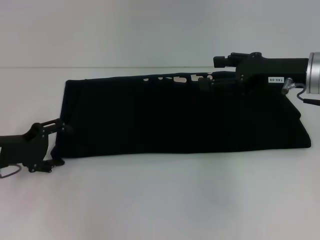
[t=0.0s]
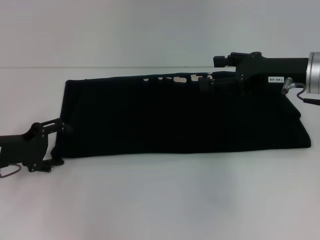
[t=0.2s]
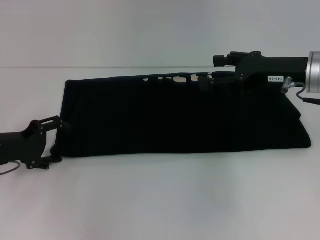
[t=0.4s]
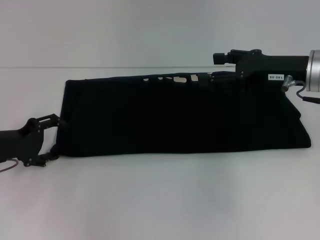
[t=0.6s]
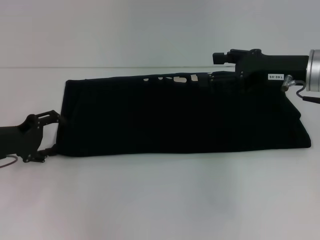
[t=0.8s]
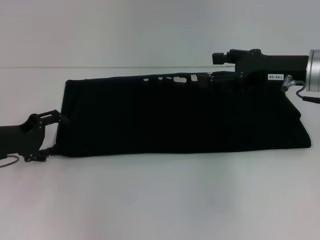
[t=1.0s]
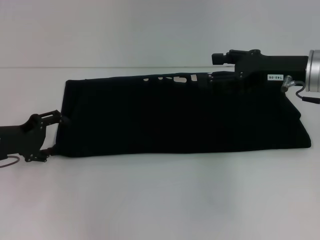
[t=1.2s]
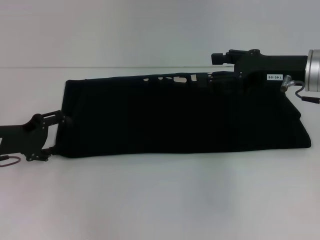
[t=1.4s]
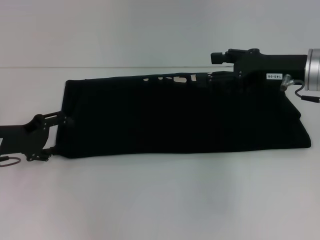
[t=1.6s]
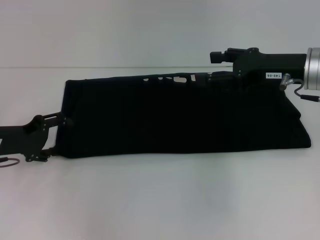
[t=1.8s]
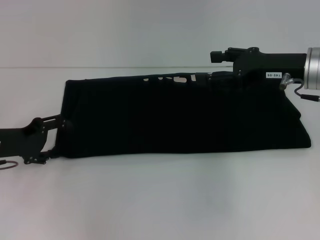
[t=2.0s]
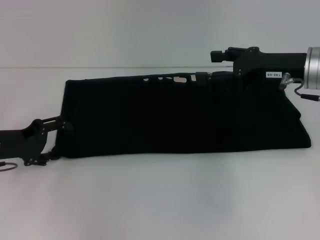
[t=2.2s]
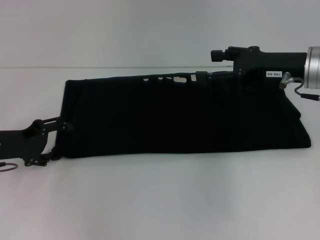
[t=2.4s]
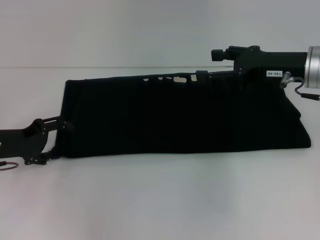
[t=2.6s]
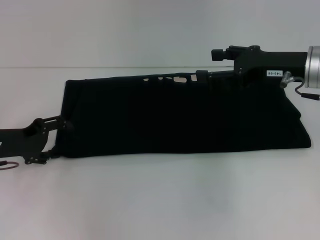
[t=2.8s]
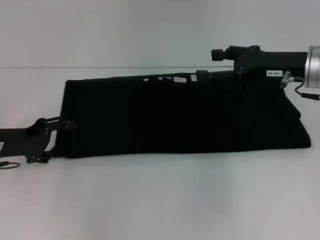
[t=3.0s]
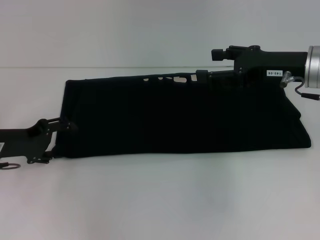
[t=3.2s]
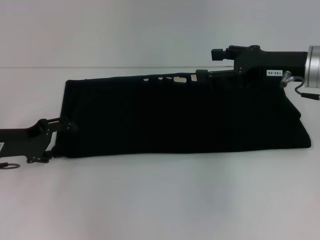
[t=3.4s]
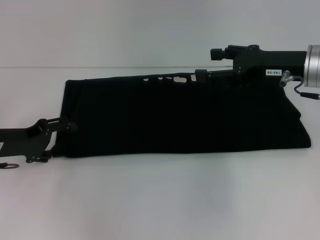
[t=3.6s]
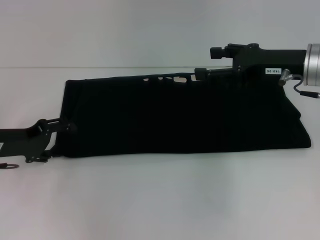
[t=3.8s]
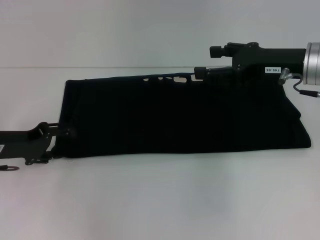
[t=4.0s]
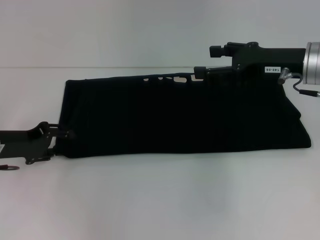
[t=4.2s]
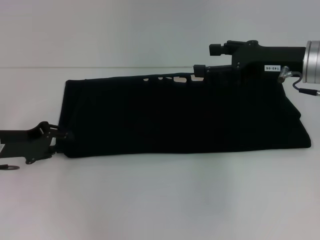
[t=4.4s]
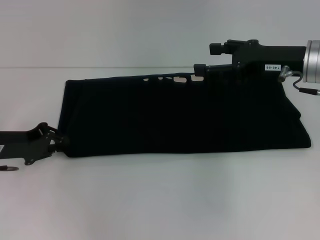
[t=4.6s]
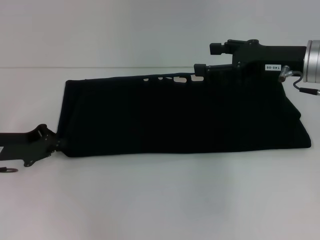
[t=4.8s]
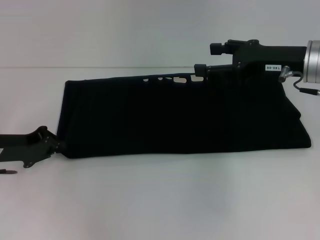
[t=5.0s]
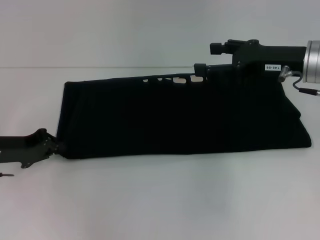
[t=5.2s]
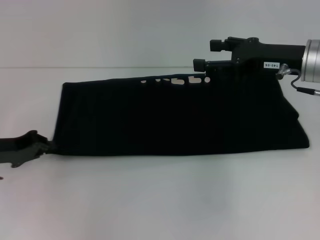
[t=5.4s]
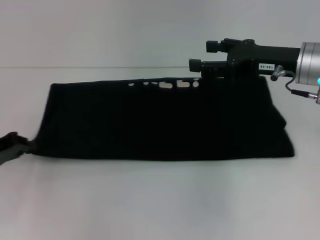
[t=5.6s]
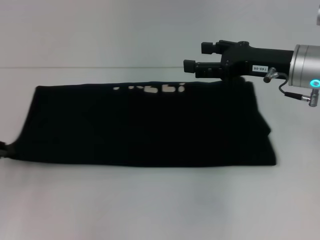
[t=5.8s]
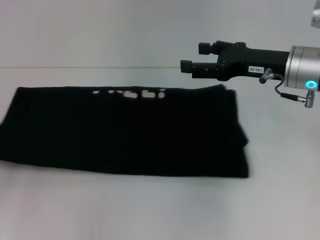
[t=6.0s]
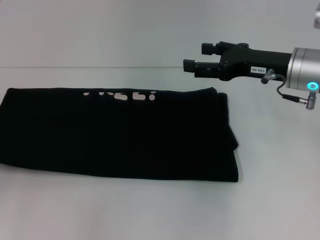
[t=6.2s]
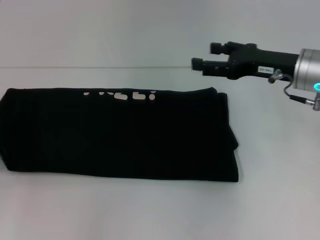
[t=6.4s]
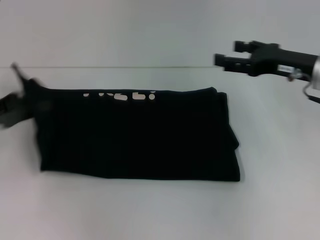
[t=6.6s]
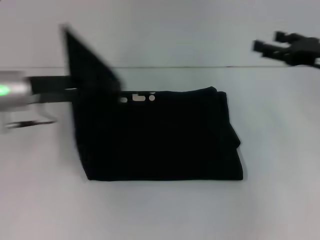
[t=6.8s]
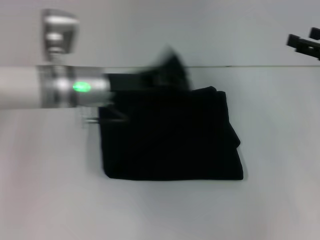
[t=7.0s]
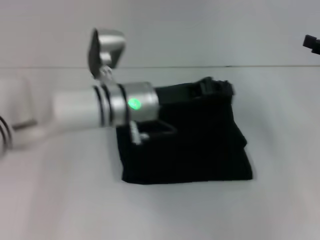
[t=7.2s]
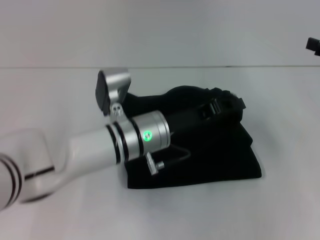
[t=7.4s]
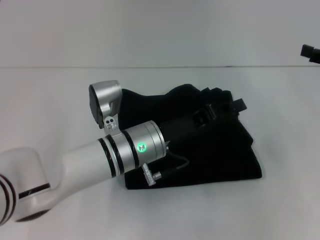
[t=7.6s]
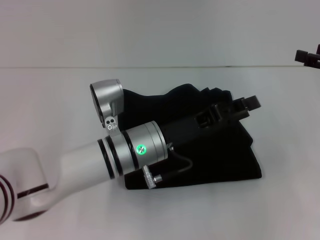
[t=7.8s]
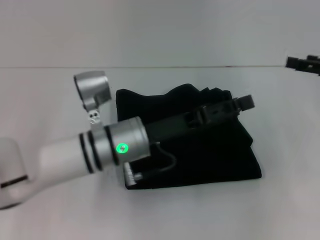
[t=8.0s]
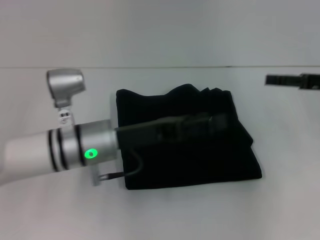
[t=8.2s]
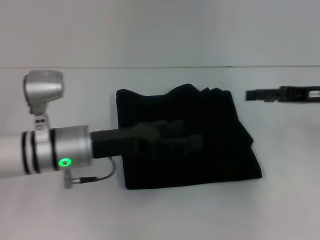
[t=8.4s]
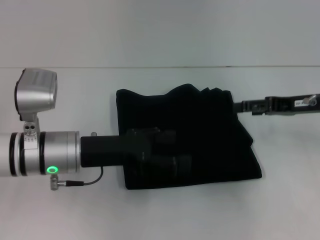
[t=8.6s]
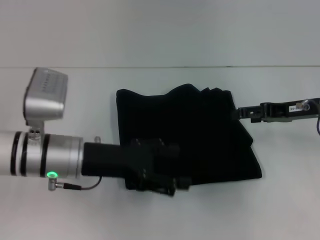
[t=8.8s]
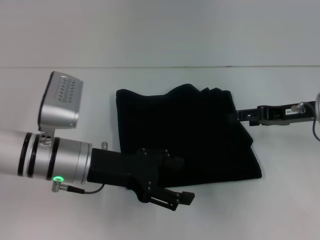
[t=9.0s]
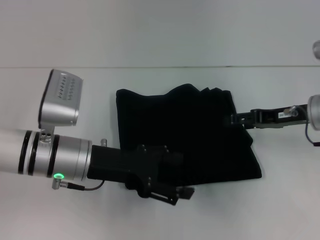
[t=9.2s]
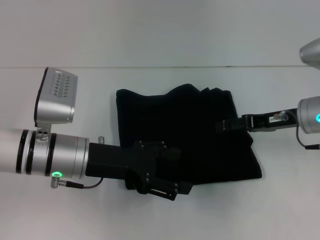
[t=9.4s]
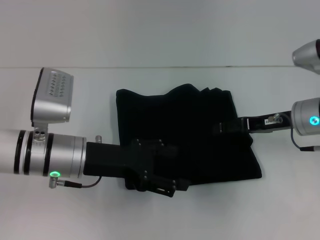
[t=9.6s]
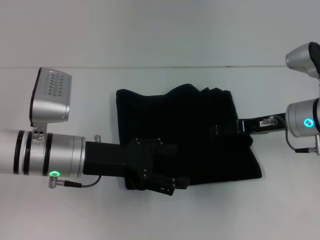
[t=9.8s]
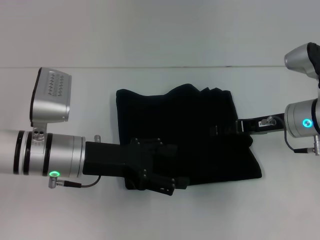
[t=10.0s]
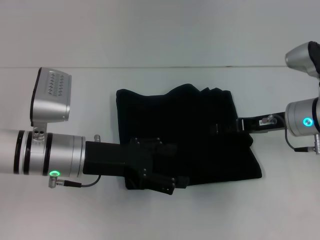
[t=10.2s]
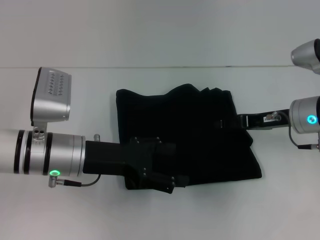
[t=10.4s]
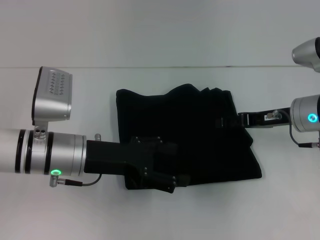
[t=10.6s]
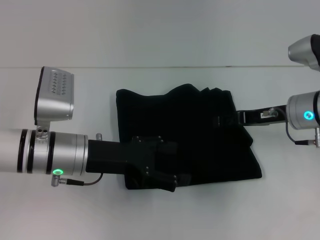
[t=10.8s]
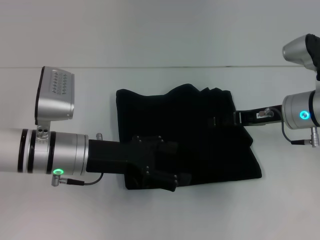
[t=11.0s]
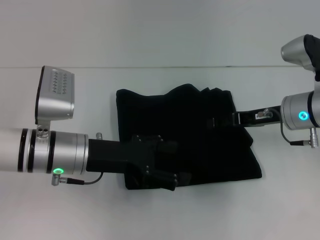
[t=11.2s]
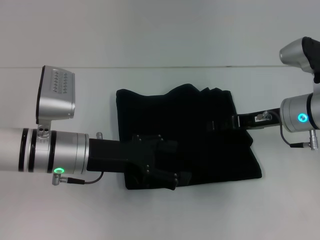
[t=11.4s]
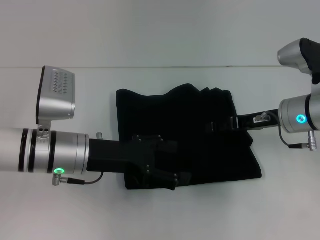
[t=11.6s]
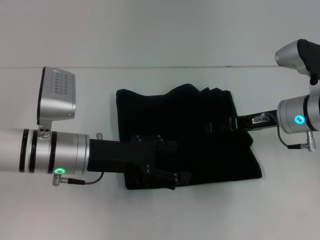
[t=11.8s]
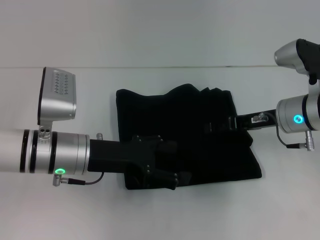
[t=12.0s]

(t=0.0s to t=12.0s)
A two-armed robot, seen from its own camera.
Step, t=0.0s - t=7.8s: Fold the clothes with your left hand.
t=0.0s - t=1.6s: The grippers stay close to where they were, moving slightly.
t=1.6s - t=3.0s: Both grippers stay about where they are.
t=3.0s - t=4.4s: The left gripper closes its fingers.
t=4.4s - t=6.0s: The left gripper goes approximately 10 cm to the left and backward, and closes up.
t=6.0s - t=7.6s: The right gripper goes approximately 15 cm to the right. Meanwhile the left gripper shifts some 35 cm to the right.
t=7.6s - t=9.0s: Both grippers travel together to the left, about 10 cm. The left gripper opens its fingers.
t=9.0s - t=12.0s: The grippers make only small movements.

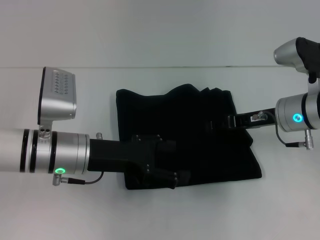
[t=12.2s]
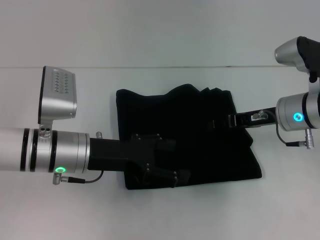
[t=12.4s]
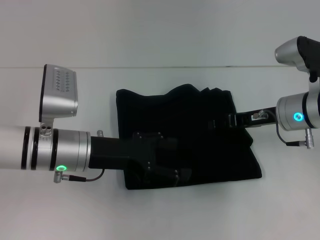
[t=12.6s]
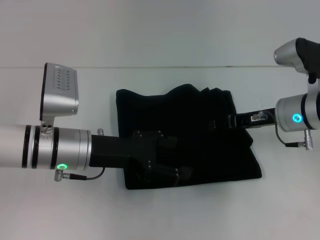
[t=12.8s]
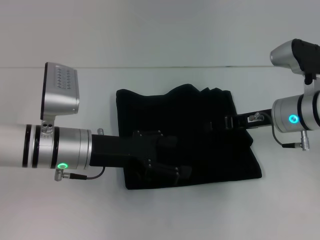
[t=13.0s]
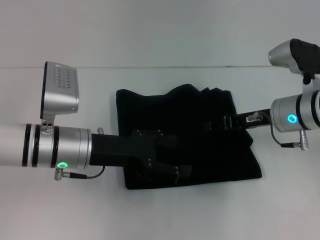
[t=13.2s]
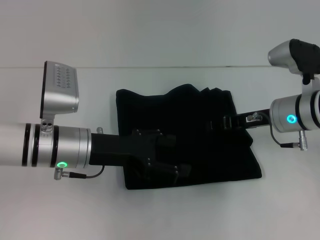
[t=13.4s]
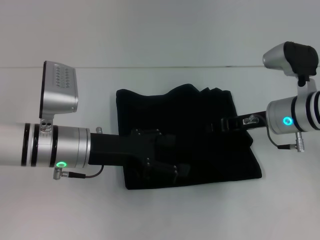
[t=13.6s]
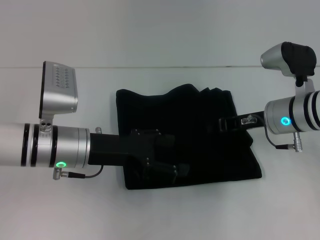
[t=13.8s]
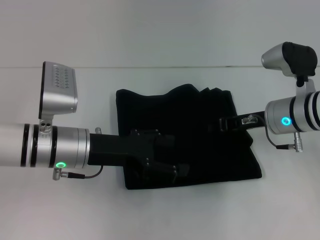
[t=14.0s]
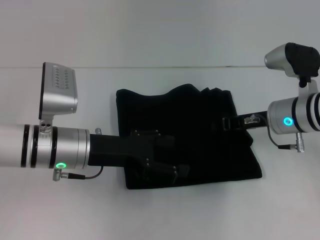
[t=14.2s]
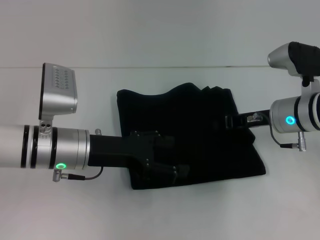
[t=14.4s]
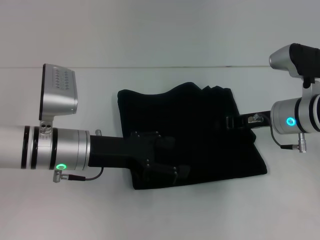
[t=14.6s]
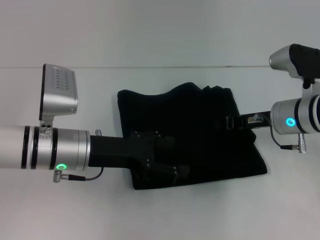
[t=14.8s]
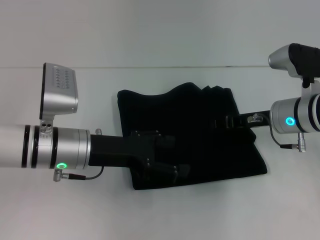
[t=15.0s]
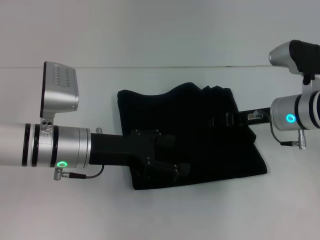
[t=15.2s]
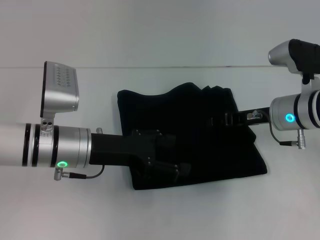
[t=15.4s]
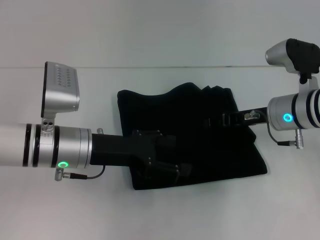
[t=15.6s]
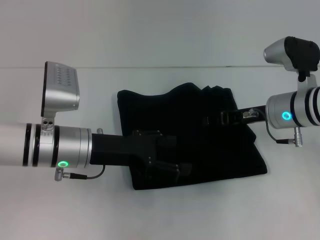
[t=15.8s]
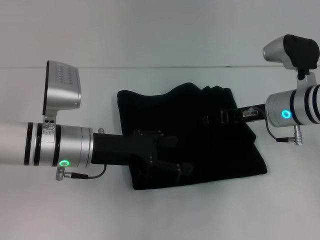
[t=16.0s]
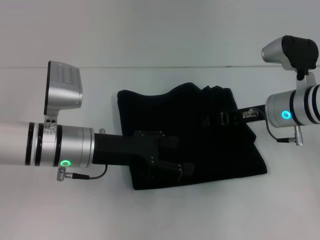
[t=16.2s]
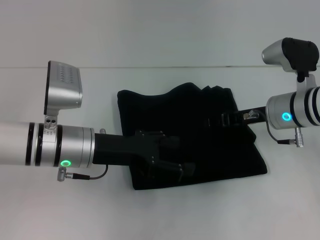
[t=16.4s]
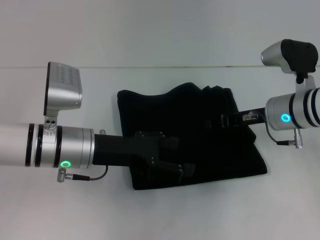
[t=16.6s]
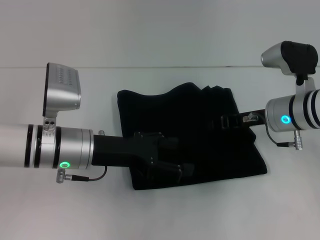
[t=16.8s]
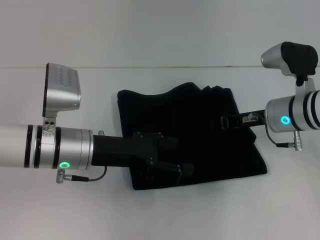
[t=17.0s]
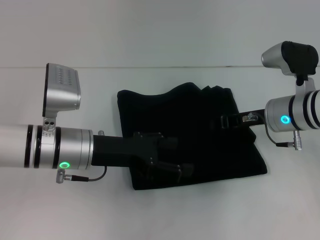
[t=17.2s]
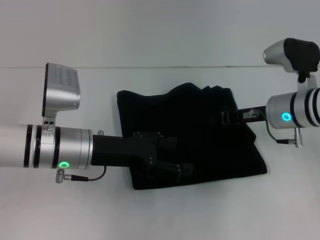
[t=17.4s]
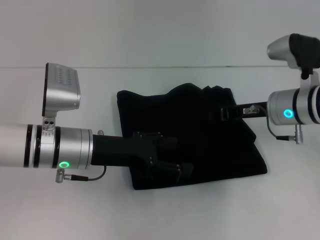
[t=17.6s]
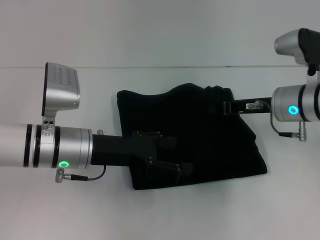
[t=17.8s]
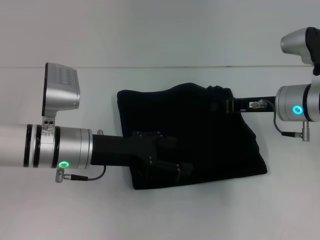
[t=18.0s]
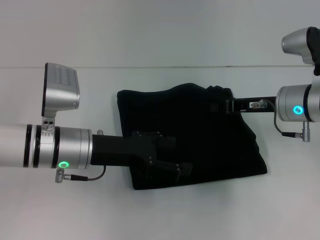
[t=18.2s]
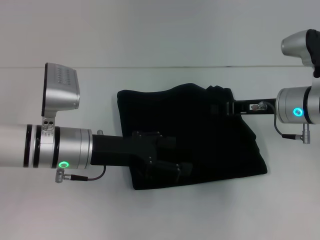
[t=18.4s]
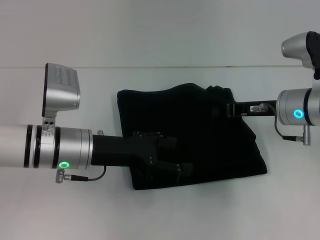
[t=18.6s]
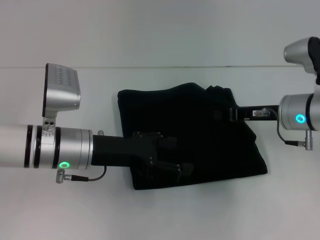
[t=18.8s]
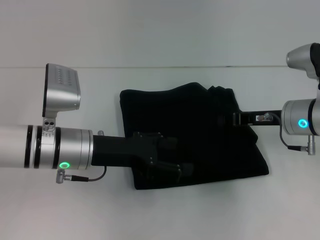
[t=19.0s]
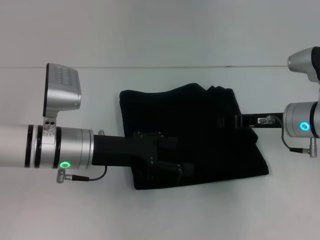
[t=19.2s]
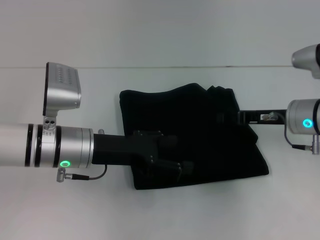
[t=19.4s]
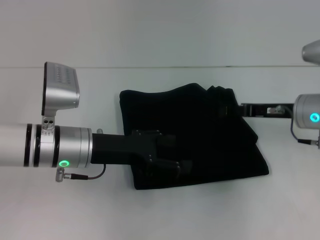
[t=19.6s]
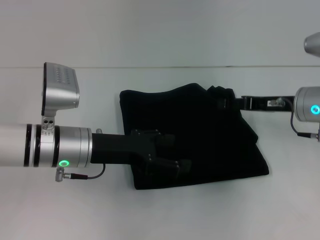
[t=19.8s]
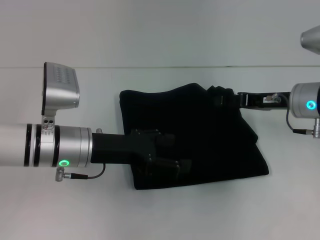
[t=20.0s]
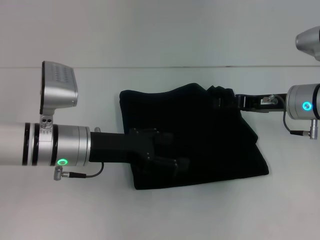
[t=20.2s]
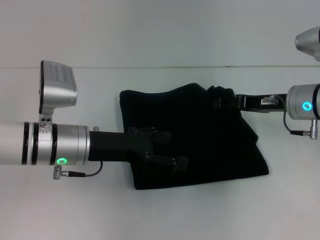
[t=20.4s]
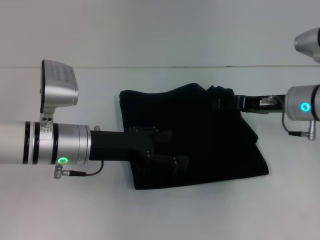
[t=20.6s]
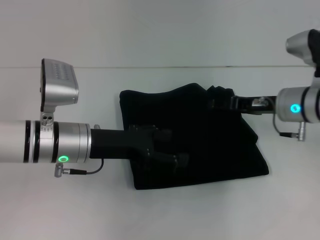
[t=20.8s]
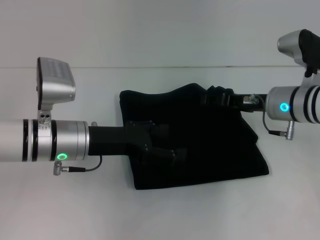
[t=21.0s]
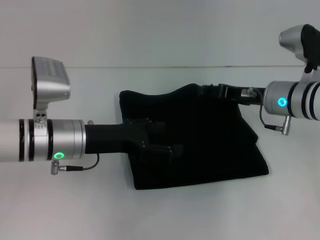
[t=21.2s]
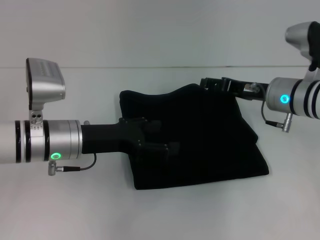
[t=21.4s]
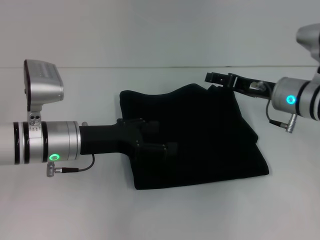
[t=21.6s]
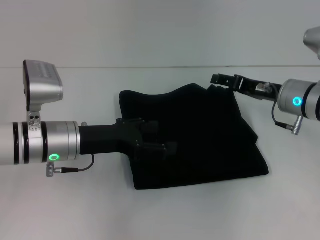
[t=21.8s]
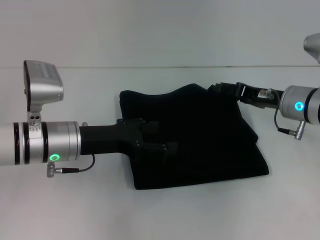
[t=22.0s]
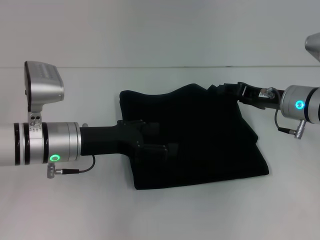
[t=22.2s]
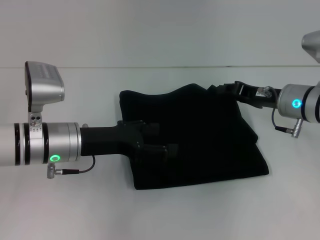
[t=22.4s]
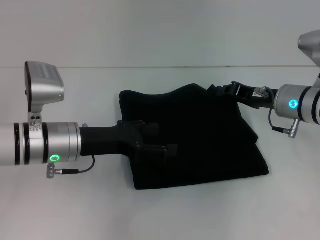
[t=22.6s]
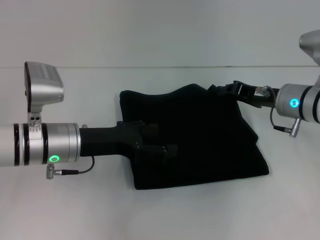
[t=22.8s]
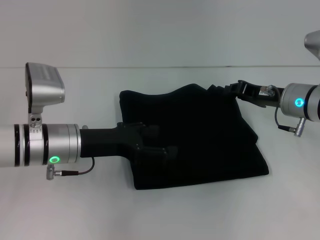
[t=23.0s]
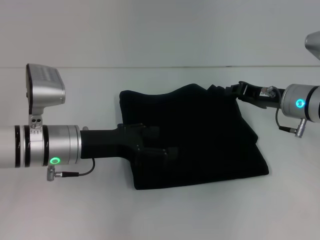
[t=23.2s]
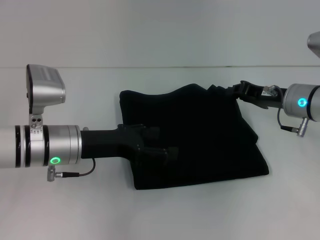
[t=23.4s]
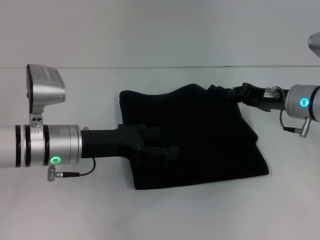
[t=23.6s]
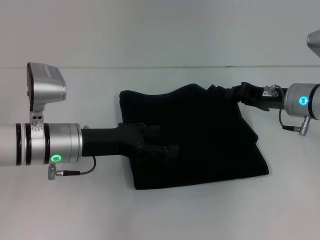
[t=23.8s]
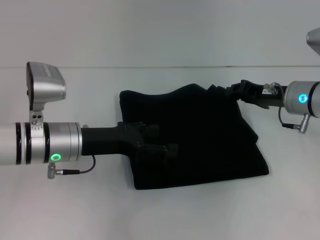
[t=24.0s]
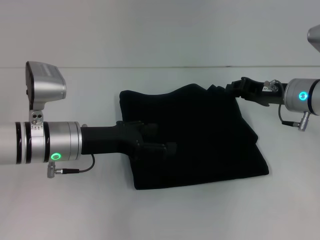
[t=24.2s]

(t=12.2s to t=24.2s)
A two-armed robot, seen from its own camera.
t=12.2s - t=13.8s: The right gripper closes up.
t=13.8s - t=16.6s: Neither gripper changes place.
t=16.6s - t=18.2s: The right gripper closes its fingers.
t=18.2s - t=19.8s: The right gripper opens.
t=19.8s - t=21.2s: The grippers make only small movements.
t=21.2s - t=22.6s: The right gripper closes up.
t=22.6s - t=24.2s: There are only small adjustments of the grippers.
